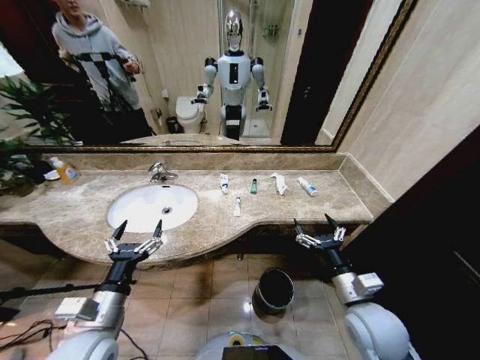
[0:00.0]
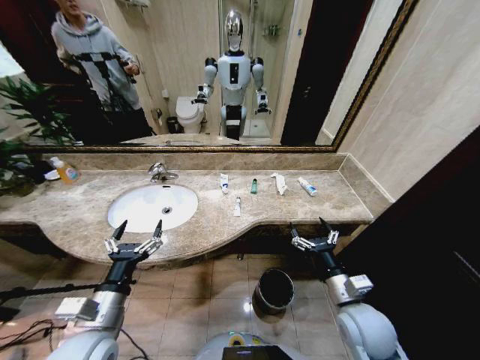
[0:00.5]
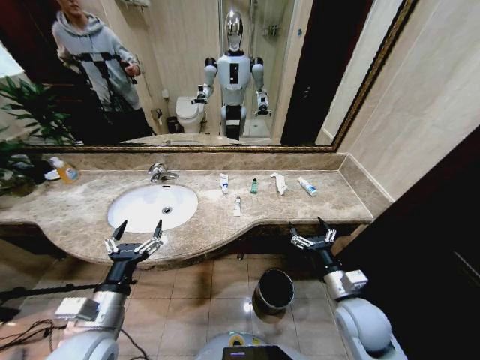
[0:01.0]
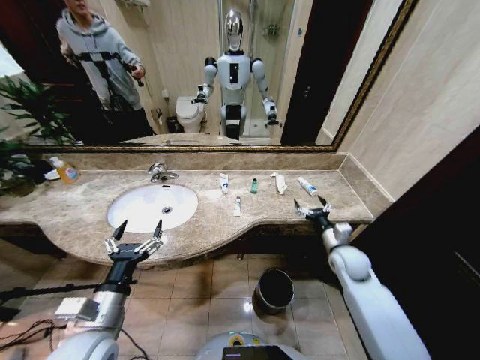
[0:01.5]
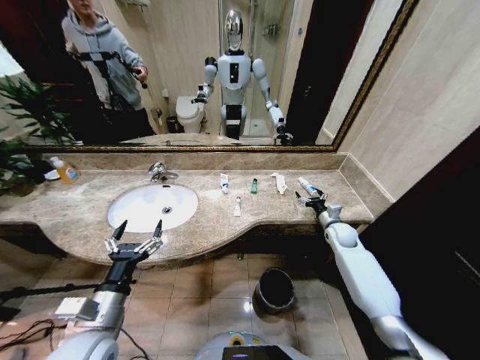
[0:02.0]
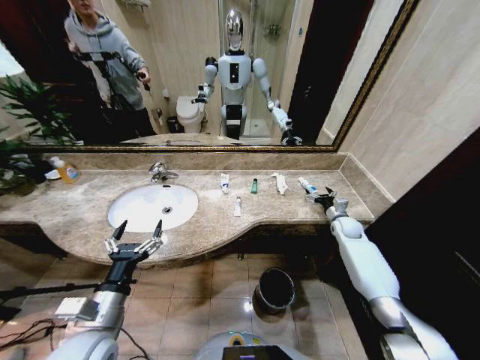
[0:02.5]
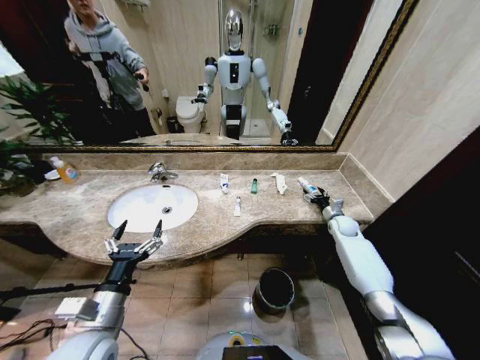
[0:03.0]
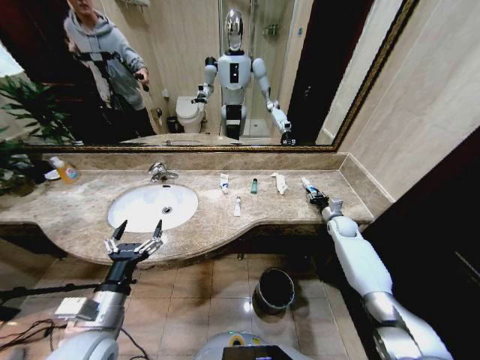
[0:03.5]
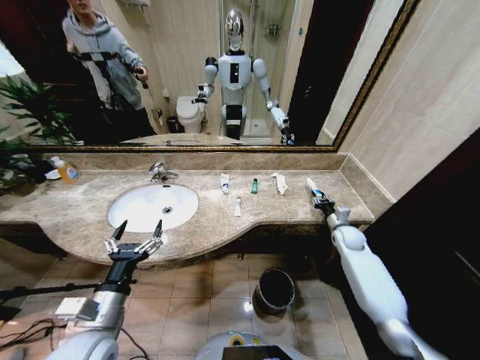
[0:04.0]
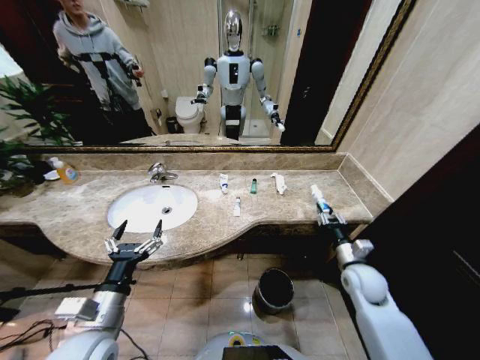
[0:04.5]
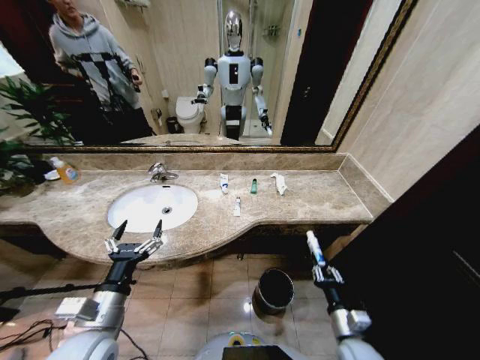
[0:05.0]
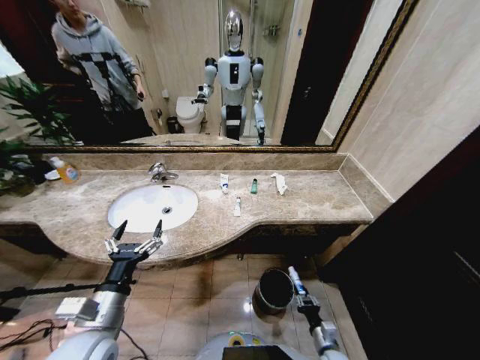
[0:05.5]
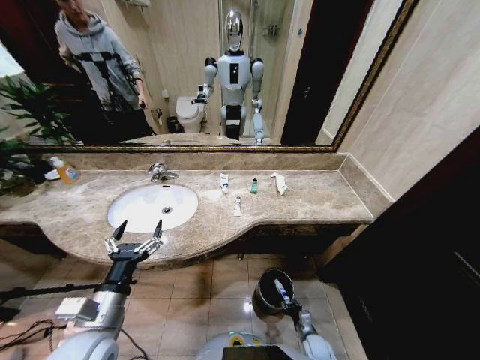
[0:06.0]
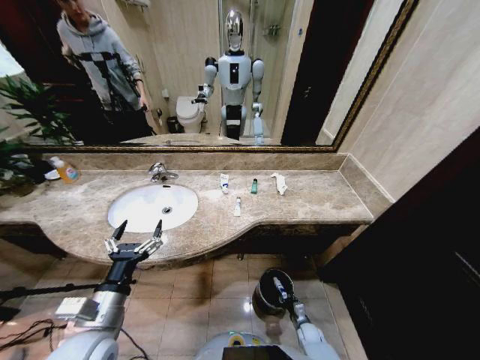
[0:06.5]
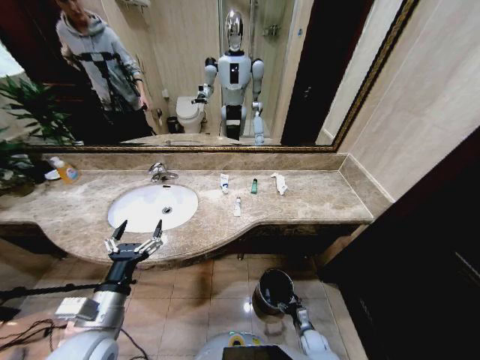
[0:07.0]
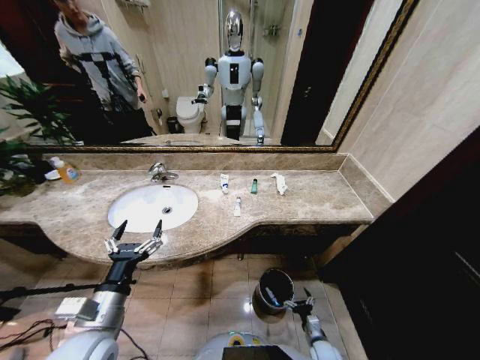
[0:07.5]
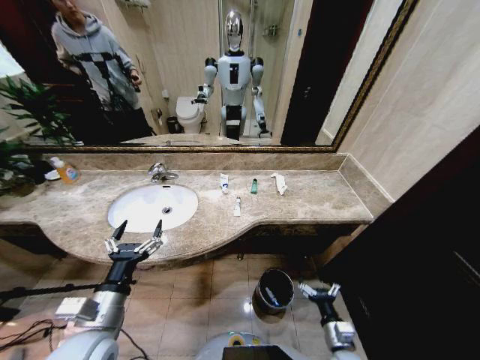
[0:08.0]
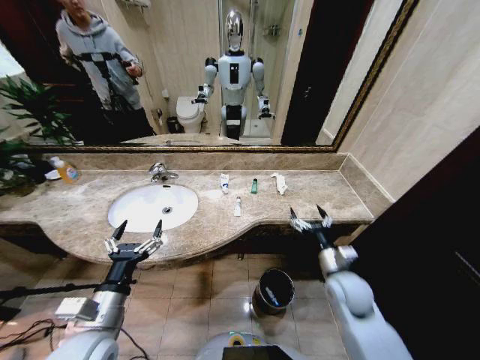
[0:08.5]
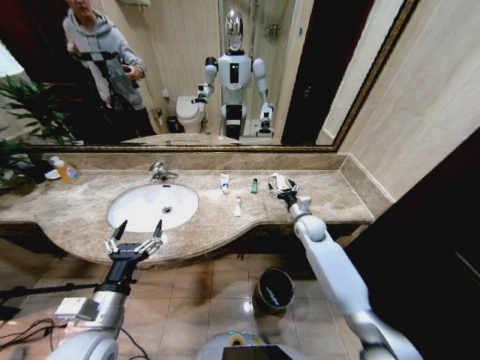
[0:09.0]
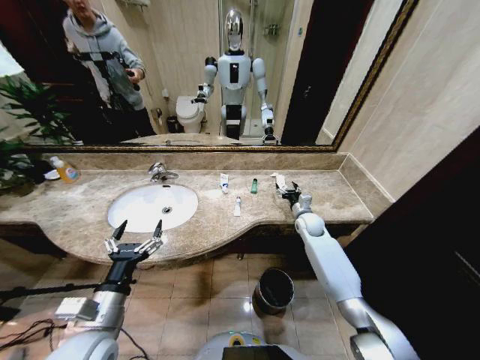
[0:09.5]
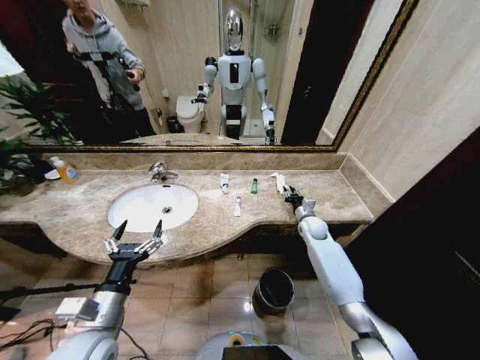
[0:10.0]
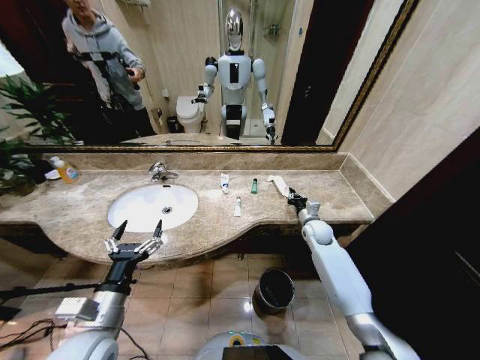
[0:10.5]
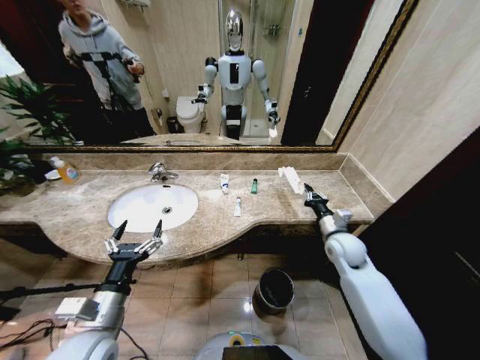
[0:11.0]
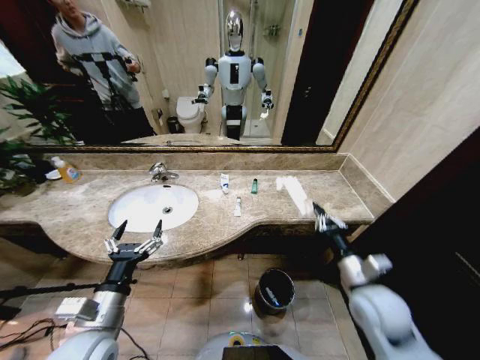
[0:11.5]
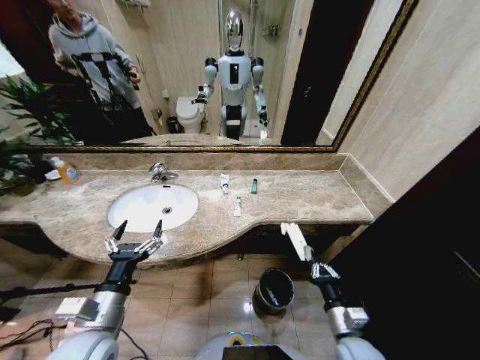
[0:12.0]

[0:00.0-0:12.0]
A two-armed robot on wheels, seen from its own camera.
Task of the whole recording: Pick up the trash from the sink and place it in the trash bin.
2.0 to 4.0 s: The right gripper closes.
4.0 to 6.0 s: The right gripper goes about 40 cm downward, backward and to the left.
6.0 to 8.0 s: The right gripper is displaced upward by roughly 20 cm, and opens up.
8.0 to 10.0 s: The right gripper goes about 40 cm forward, and closes up.
10.0 to 12.0 s: The right gripper moves backward, some 35 cm.

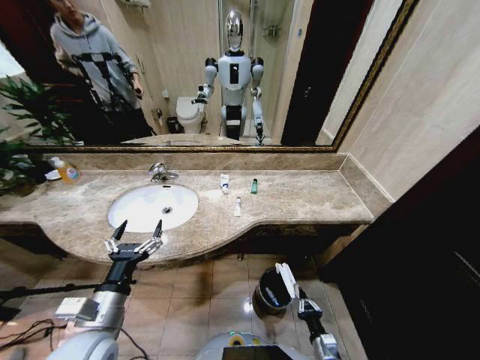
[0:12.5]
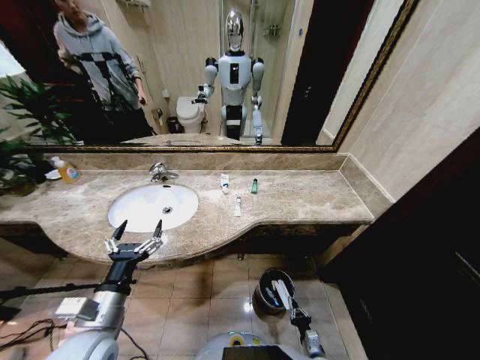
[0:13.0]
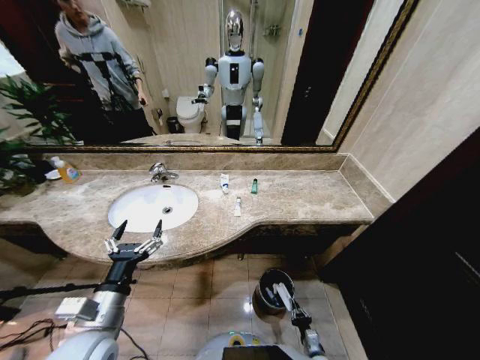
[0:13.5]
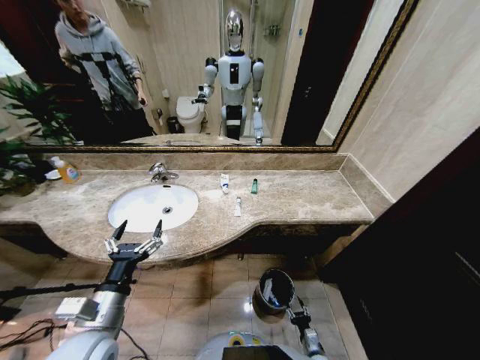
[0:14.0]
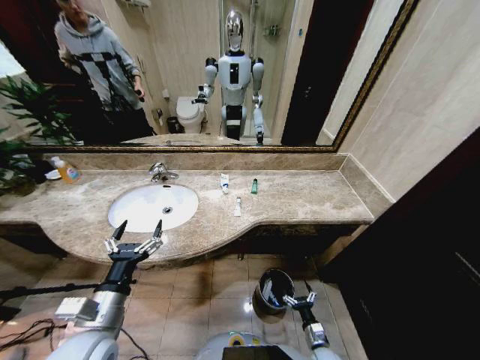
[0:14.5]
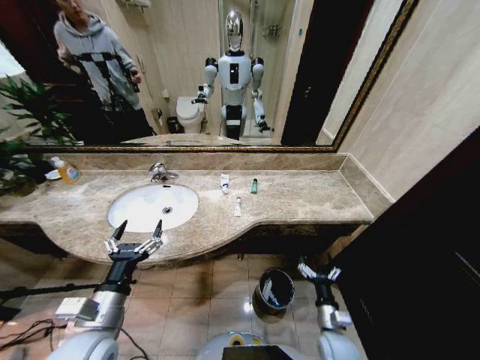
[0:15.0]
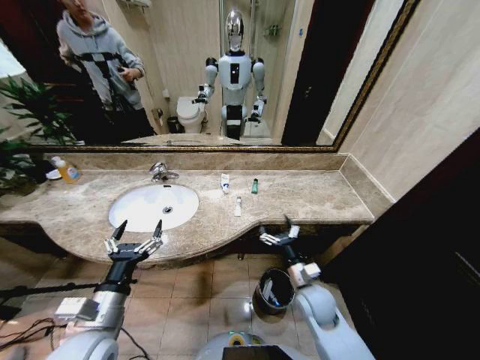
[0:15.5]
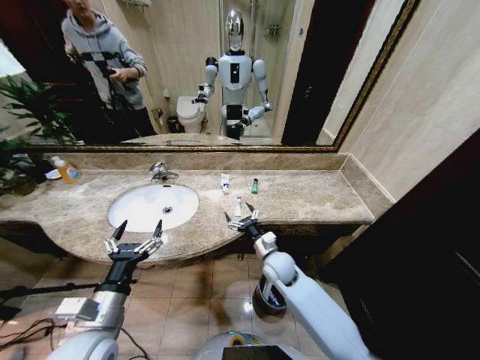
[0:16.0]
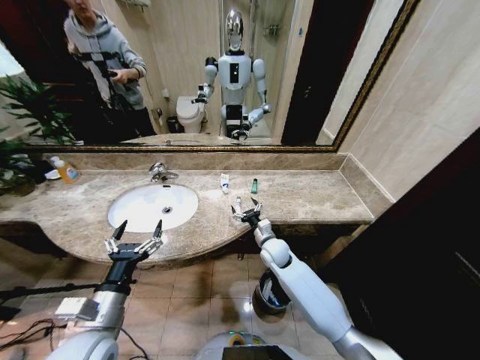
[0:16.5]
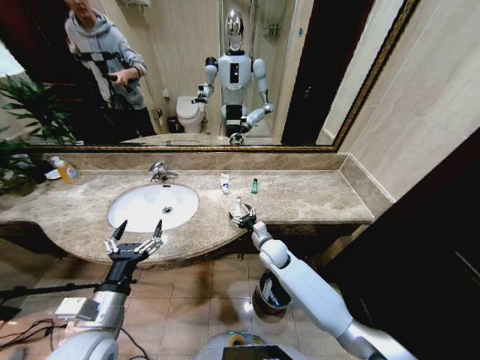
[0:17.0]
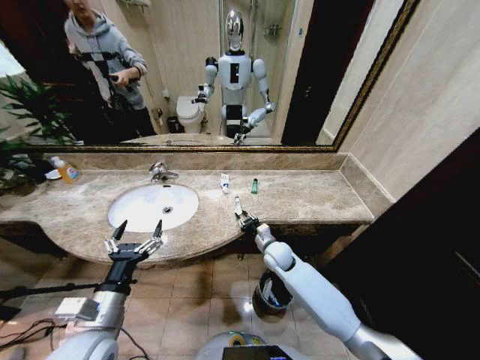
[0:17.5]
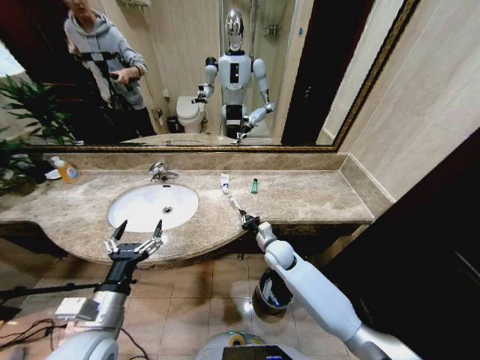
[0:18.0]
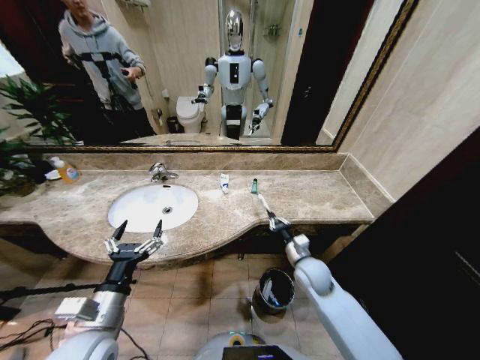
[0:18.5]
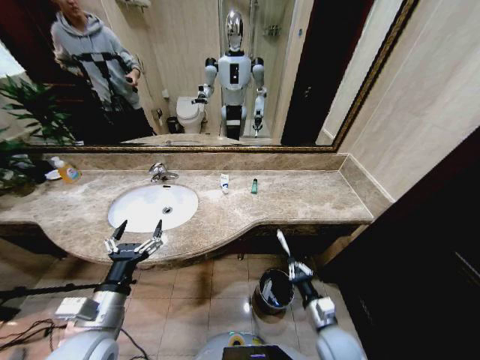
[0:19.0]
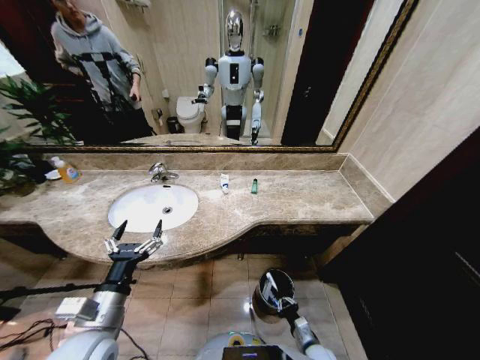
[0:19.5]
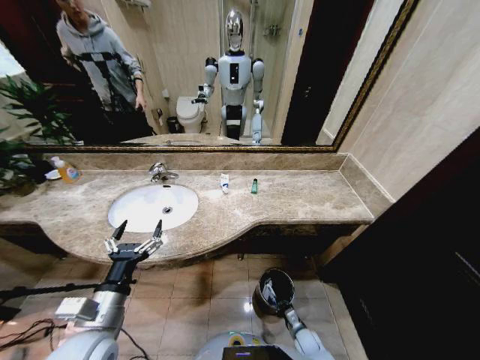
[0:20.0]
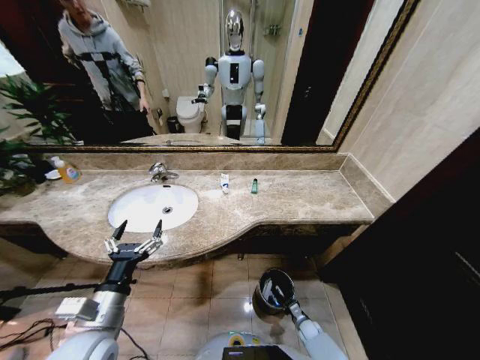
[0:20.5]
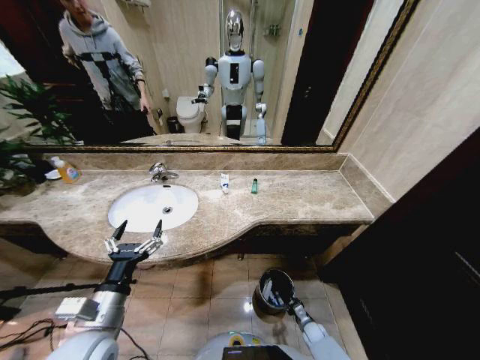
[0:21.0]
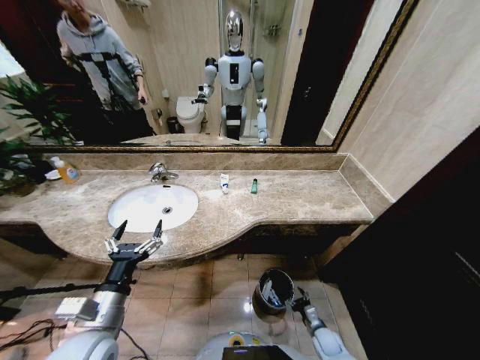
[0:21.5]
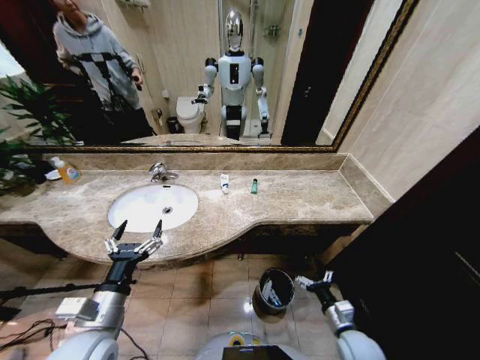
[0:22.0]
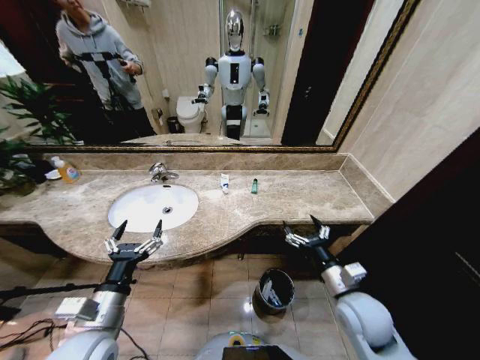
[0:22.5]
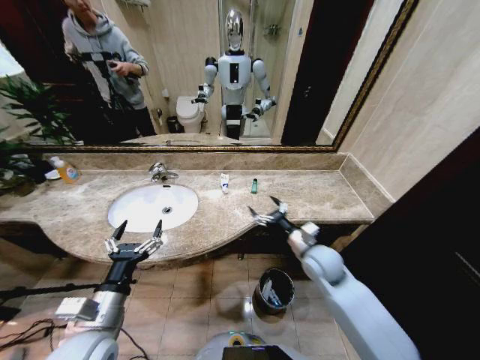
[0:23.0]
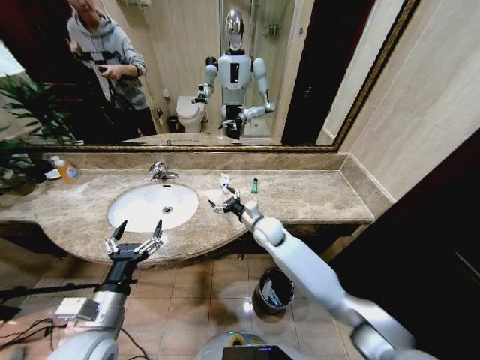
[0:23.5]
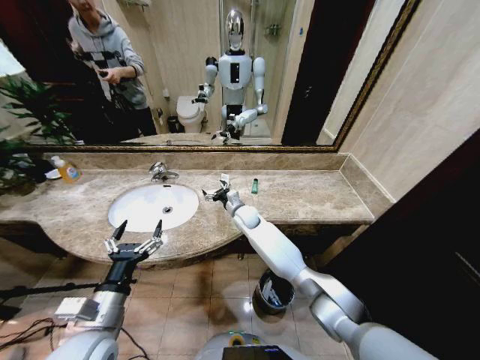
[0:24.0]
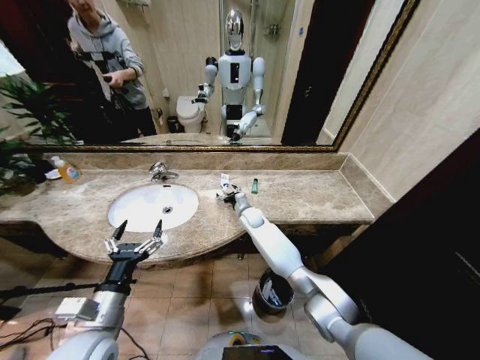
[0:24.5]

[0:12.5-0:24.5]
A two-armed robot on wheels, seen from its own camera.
Task of the whole recording: Pick up the trash from the sink and place it in the trash bin.
12.5 to 14.5 s: The right gripper travels downward by roughly 5 cm, and opens its fingers.
14.5 to 16.5 s: The right gripper travels forward, upward and to the left by some 40 cm.
16.5 to 18.5 s: The right gripper goes roughly 10 cm to the right and backward, and closes up.
18.5 to 20.5 s: The right gripper moves downward, some 35 cm.
20.5 to 22.5 s: The right gripper shifts approximately 40 cm upward, and opens.
22.5 to 24.5 s: The right gripper shifts about 40 cm forward and to the left.

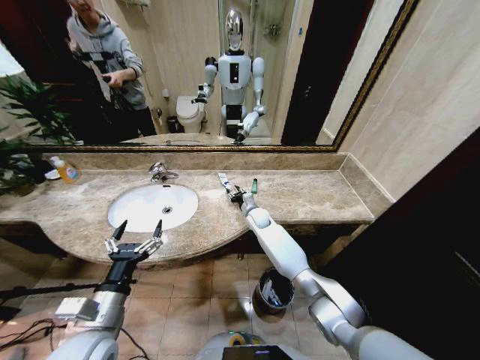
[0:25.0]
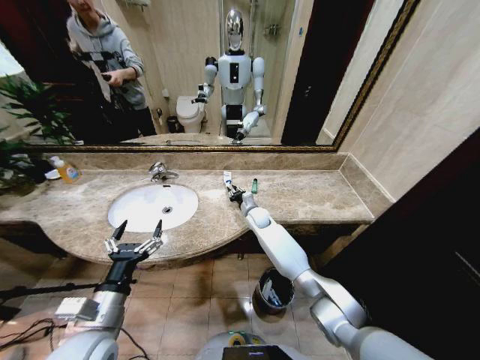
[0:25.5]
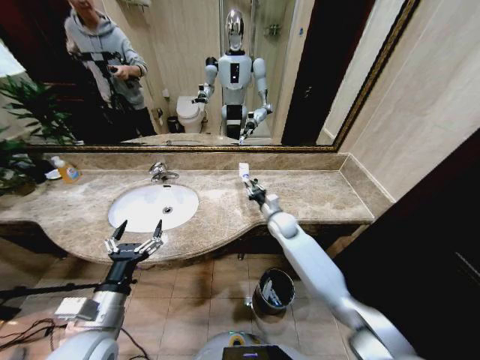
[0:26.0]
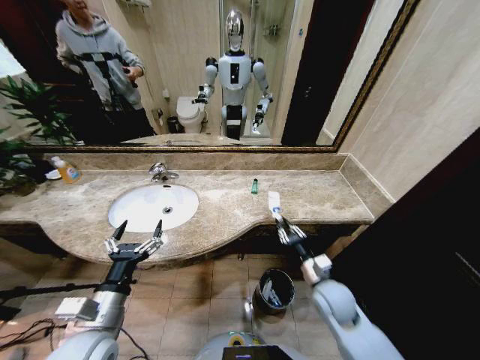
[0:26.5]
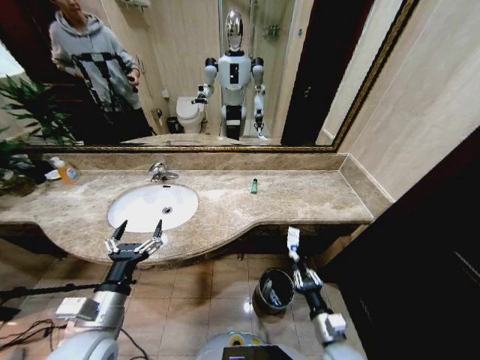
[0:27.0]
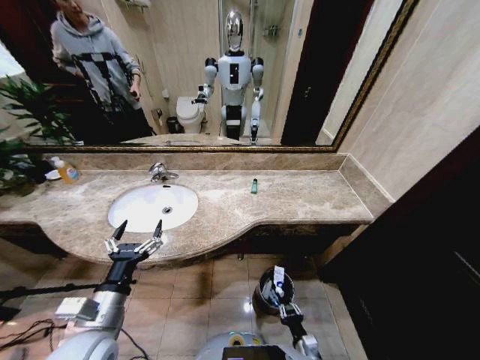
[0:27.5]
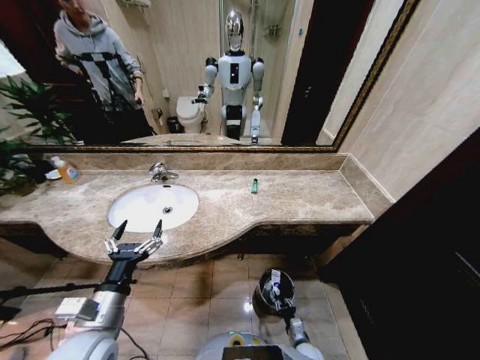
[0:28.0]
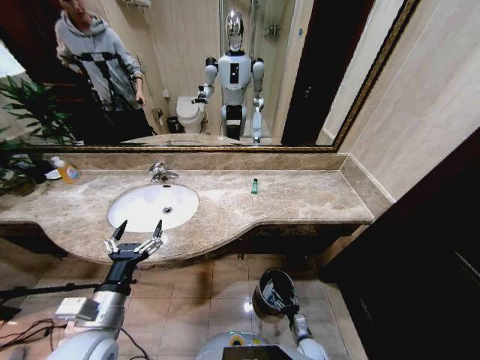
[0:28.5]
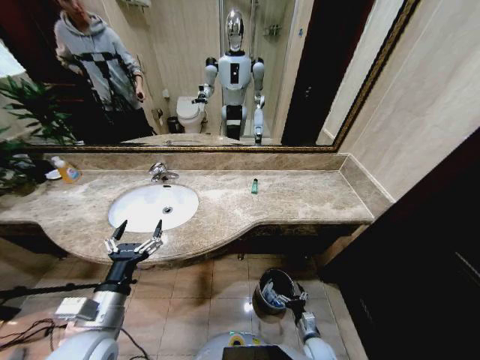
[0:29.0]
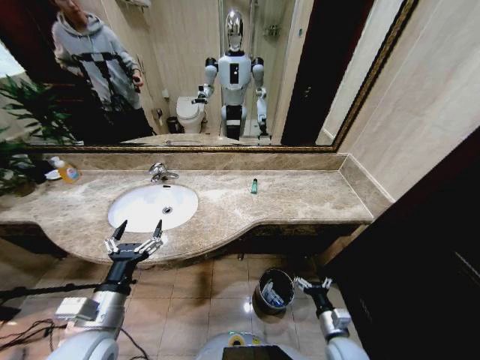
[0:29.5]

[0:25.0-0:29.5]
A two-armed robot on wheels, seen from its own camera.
Task of the whole recording: Pick up the trash from the sink and place it in the trash bin.
25.0 to 27.0 s: The right gripper heads backward, covering approximately 40 cm.
27.0 to 29.5 s: The right gripper travels downward and back again, some 25 cm each way, and opens its fingers.
